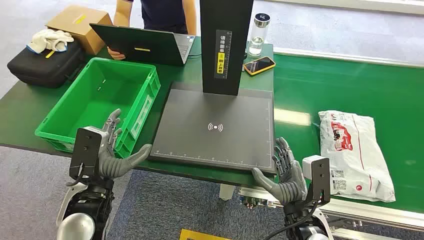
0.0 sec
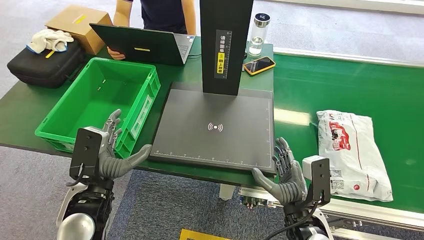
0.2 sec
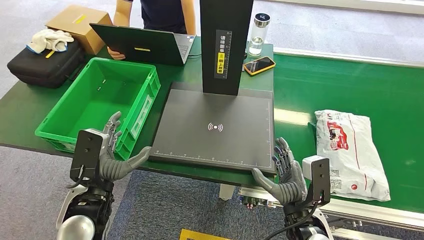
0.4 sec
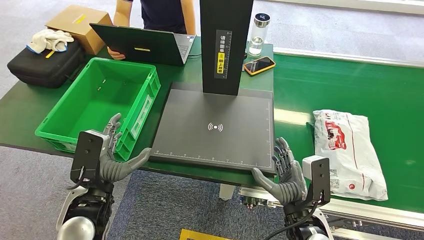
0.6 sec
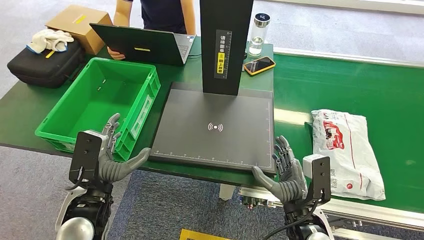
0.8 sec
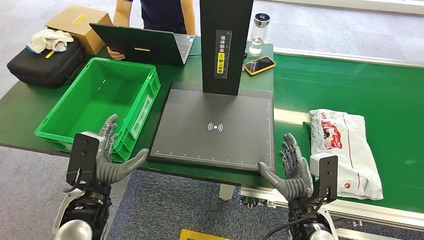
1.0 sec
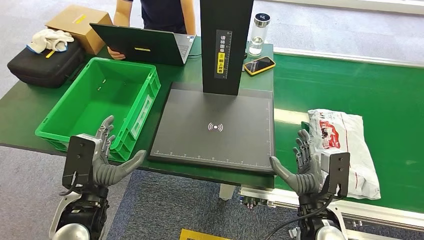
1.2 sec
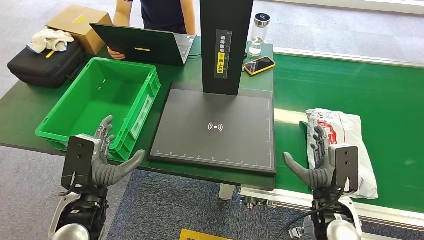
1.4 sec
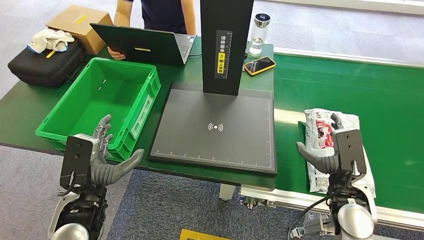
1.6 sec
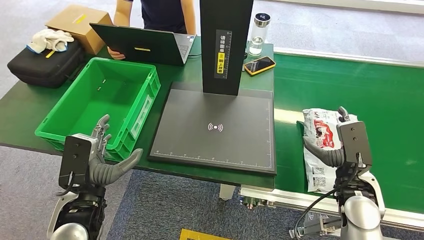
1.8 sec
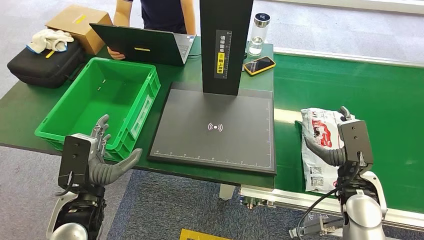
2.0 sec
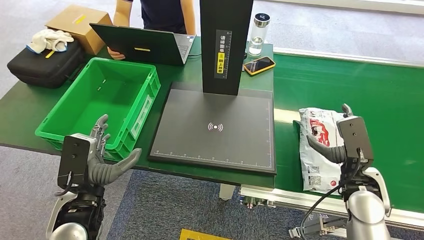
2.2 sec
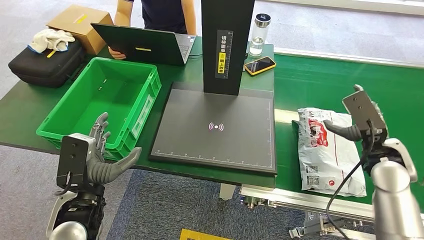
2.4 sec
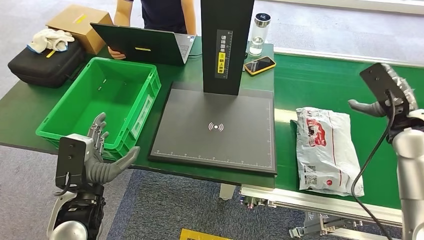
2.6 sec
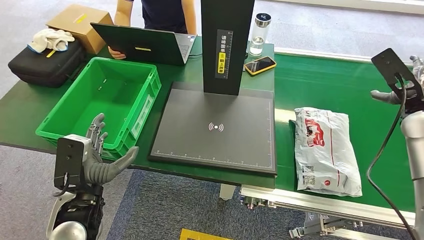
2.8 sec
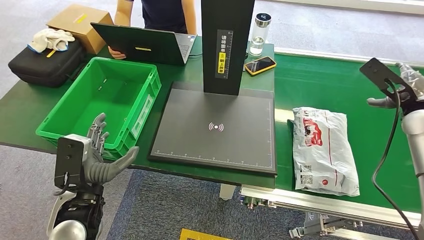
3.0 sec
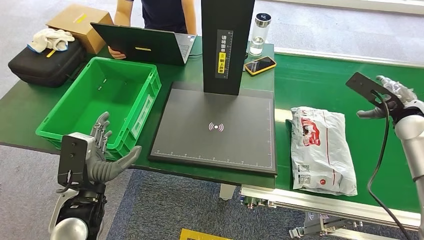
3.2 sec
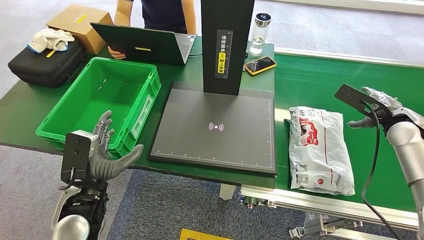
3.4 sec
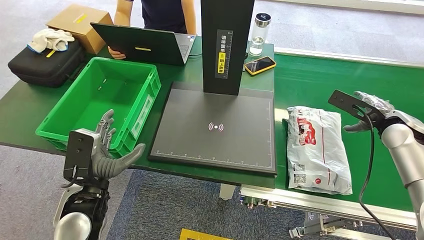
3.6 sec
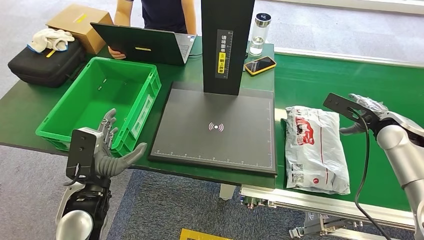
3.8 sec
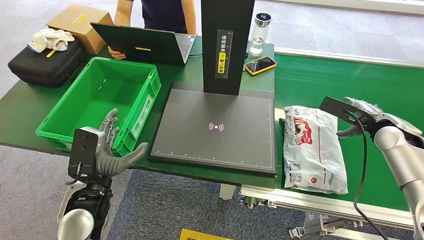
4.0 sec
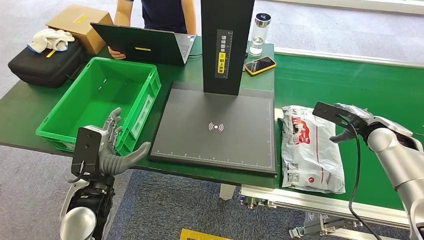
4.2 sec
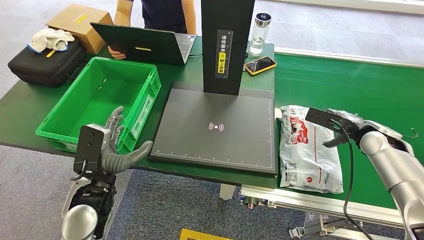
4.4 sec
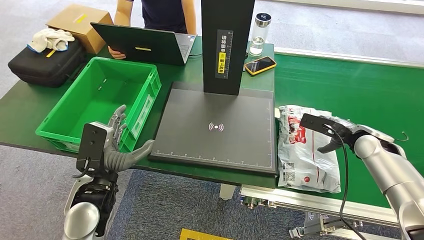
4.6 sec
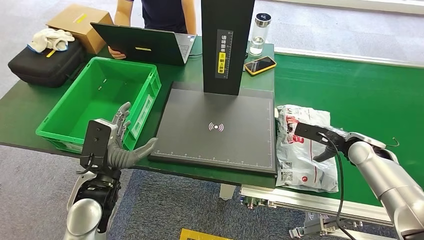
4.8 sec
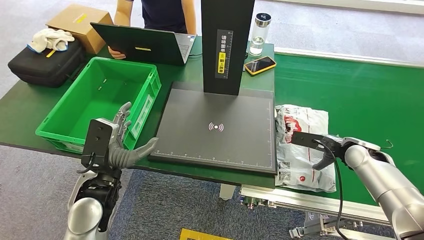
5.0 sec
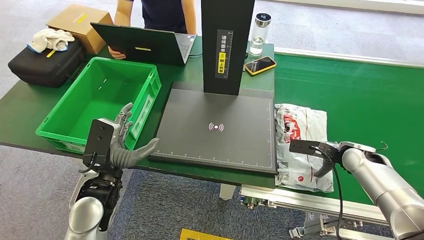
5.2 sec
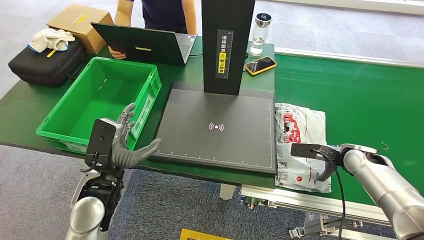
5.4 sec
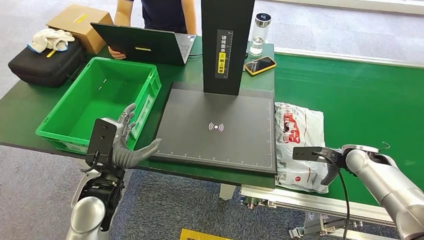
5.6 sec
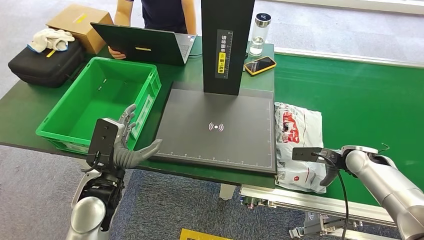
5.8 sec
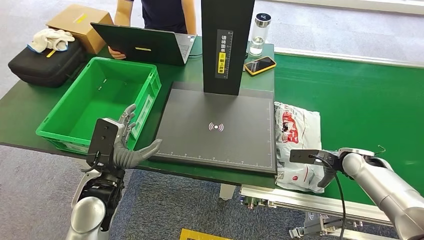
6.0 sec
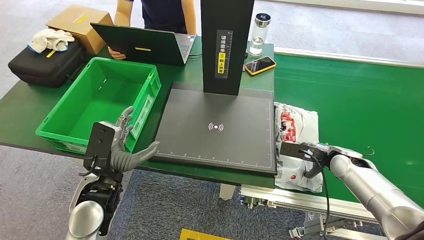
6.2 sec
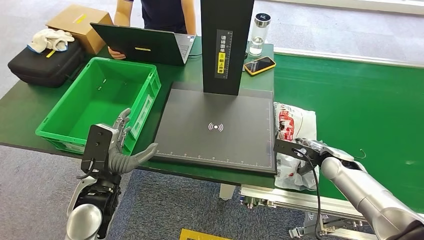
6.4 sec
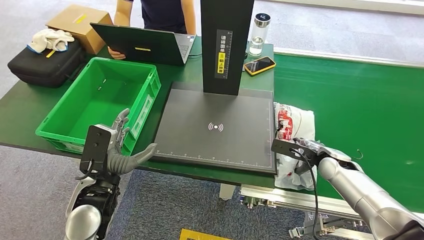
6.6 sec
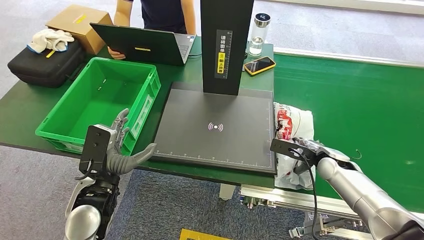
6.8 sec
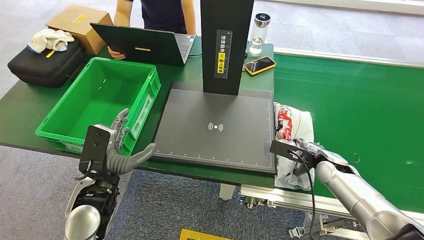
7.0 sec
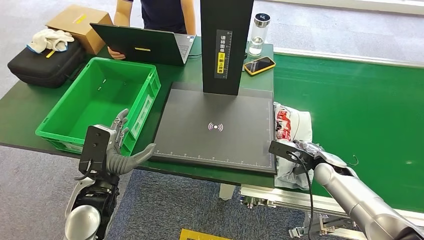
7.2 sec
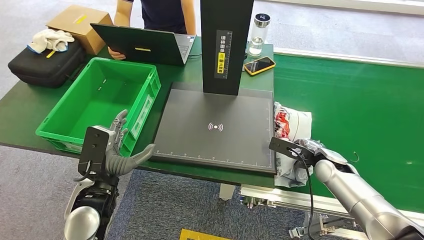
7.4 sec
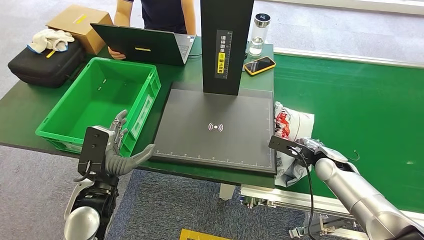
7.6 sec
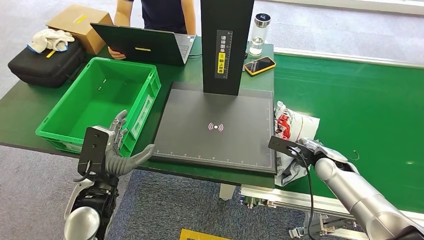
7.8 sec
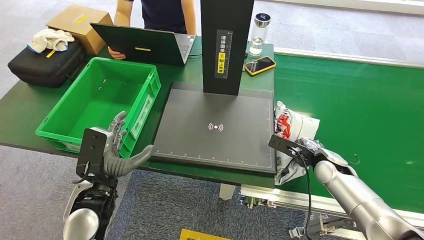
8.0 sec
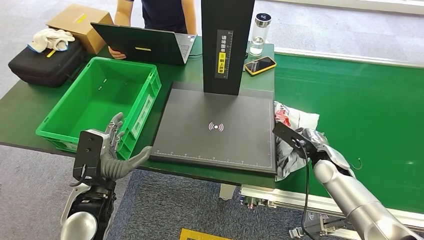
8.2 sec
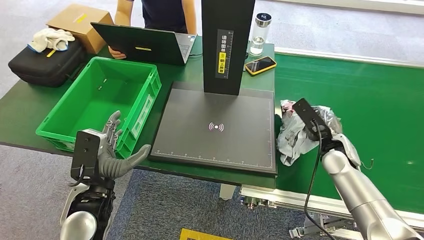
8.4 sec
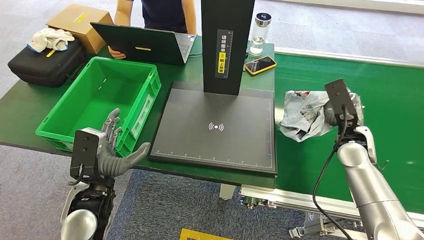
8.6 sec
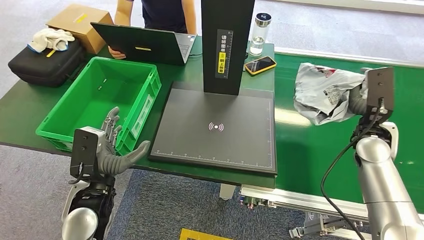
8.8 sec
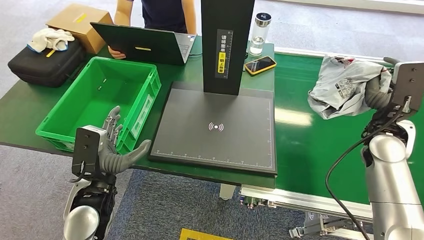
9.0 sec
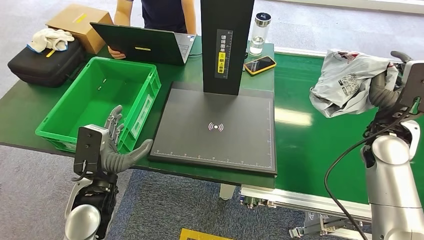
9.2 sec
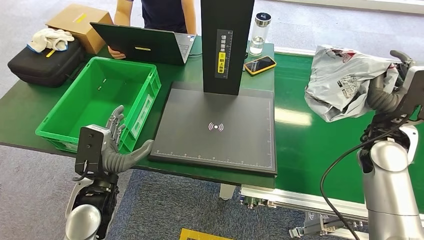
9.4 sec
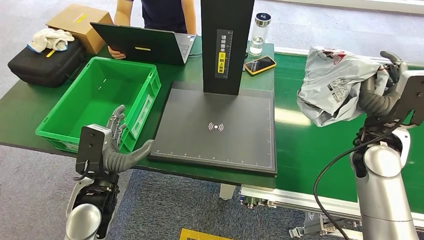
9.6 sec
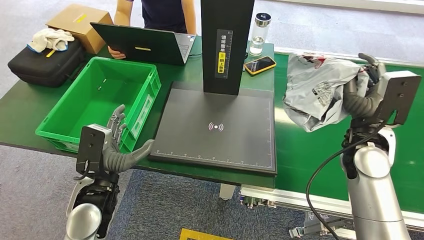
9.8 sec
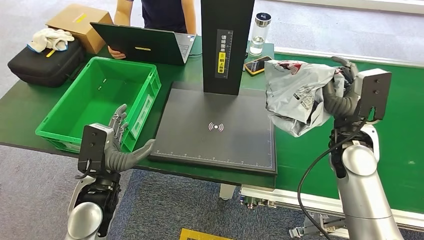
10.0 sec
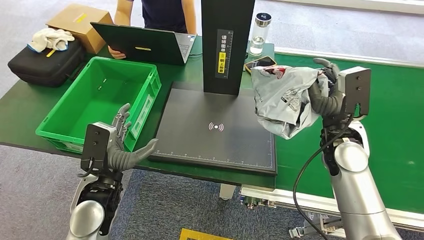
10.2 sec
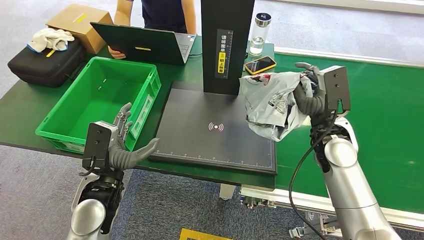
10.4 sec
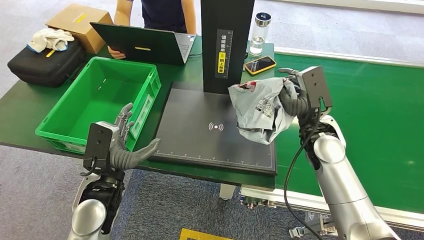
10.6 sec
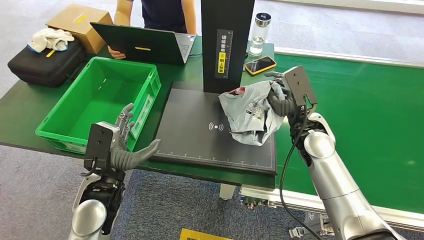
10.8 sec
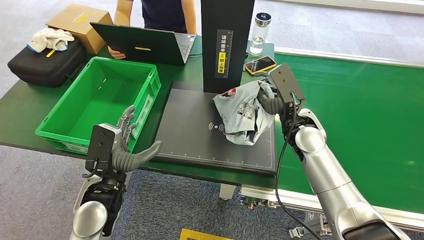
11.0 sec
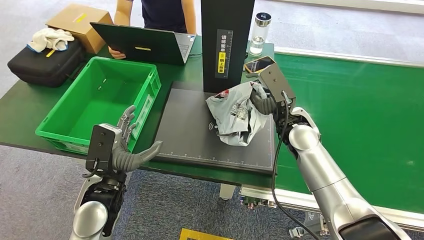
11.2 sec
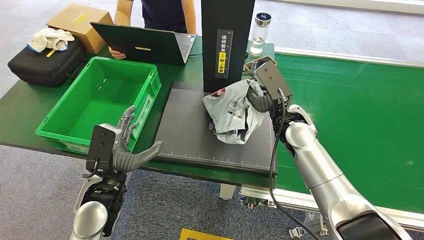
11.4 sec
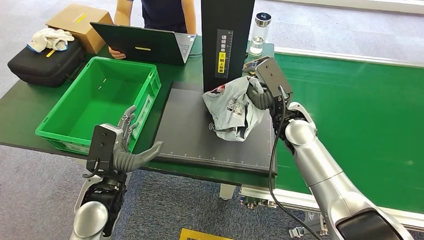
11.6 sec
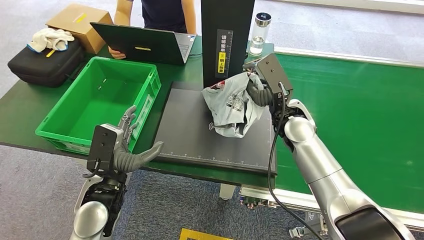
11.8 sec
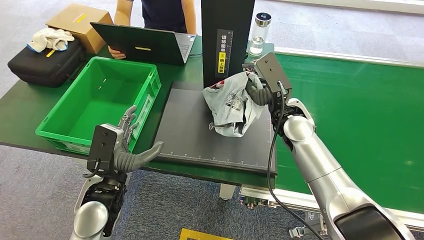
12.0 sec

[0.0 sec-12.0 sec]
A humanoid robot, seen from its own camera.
Step, 0.0 sec to 9.6 sec: Pick up the package from the conveyor belt.
1.6 sec to 3.0 sec: The right hand goes roughly 25 cm to the right, upward and forward.
3.0 sec to 4.4 sec: The right hand travels downward by some 5 cm.
4.4 sec to 6.0 sec: The right hand goes approximately 5 cm downward.
6.0 sec to 7.6 sec: The right hand heads to the left, covering approximately 5 cm.
7.6 sec to 9.0 sec: The right hand goes approximately 10 cm upward.
10.4 sec to 12.0 sec: The right hand shifts about 10 cm to the left.

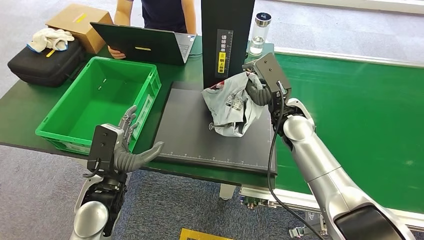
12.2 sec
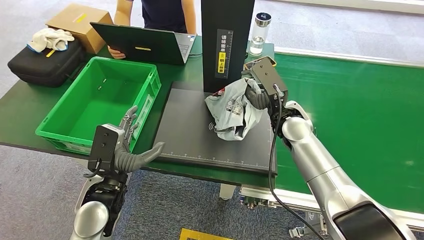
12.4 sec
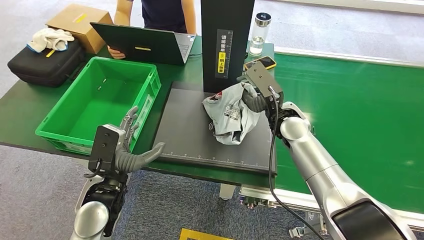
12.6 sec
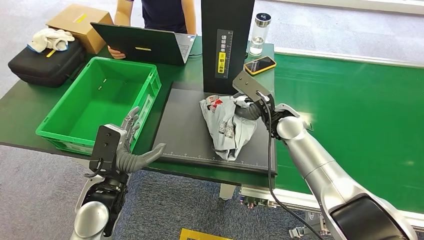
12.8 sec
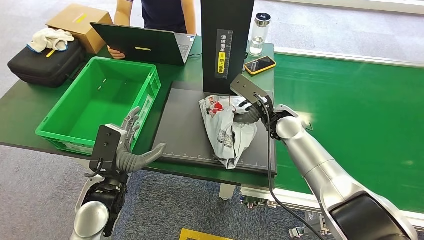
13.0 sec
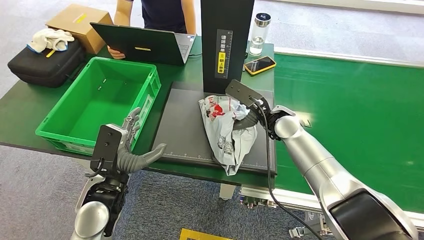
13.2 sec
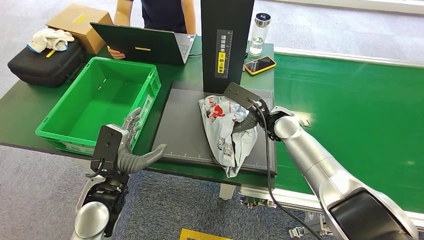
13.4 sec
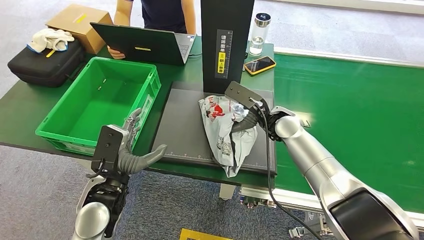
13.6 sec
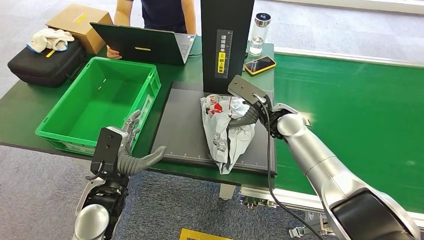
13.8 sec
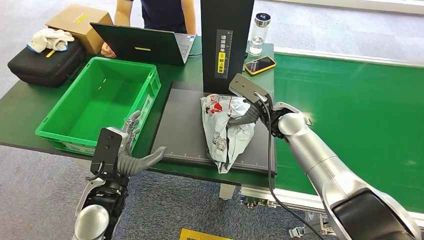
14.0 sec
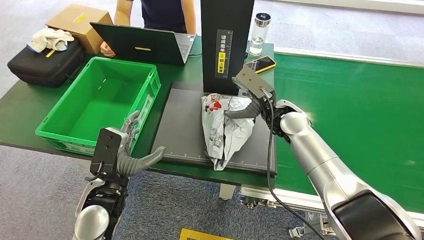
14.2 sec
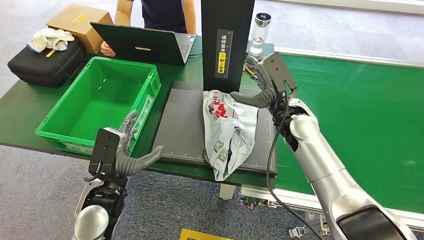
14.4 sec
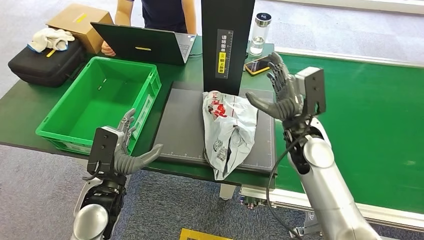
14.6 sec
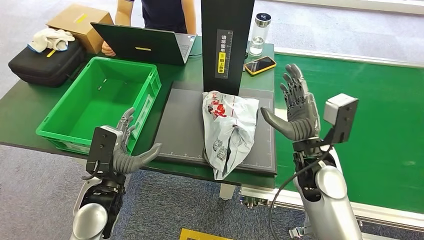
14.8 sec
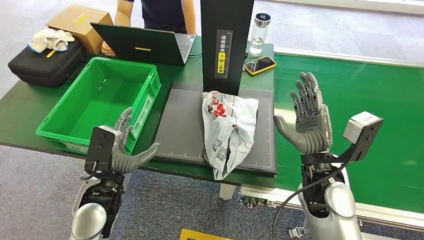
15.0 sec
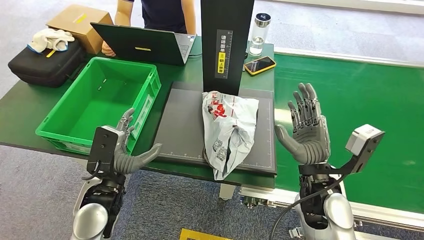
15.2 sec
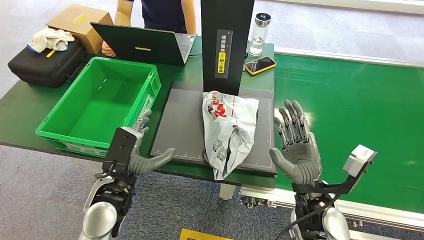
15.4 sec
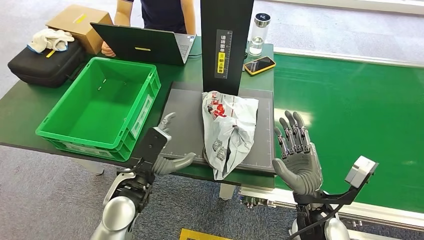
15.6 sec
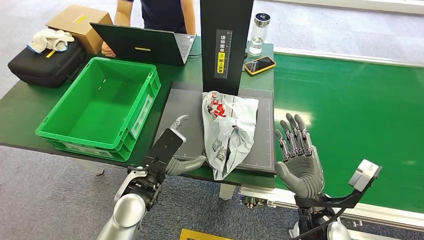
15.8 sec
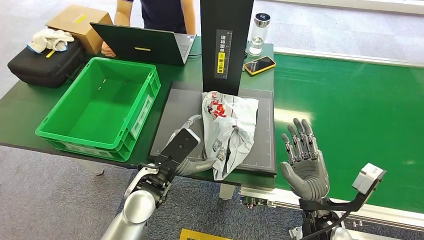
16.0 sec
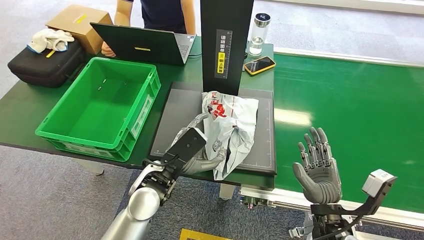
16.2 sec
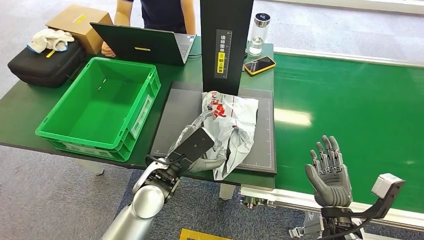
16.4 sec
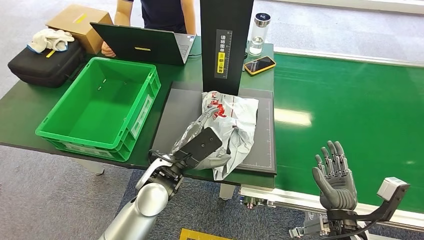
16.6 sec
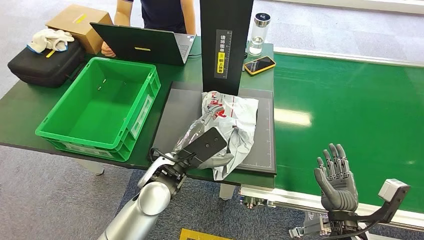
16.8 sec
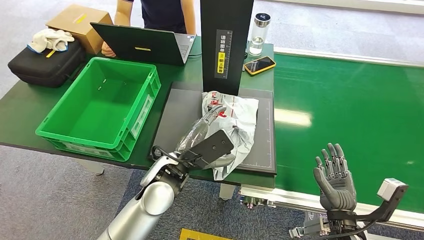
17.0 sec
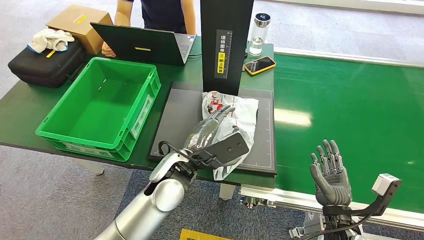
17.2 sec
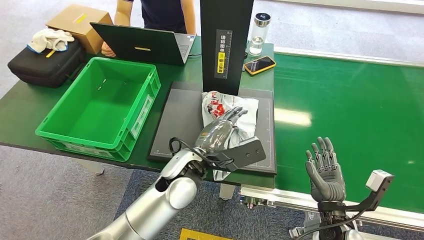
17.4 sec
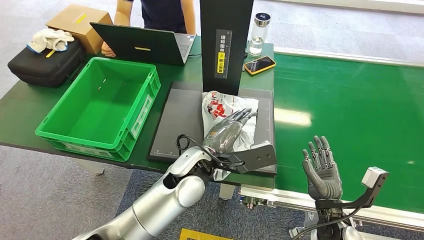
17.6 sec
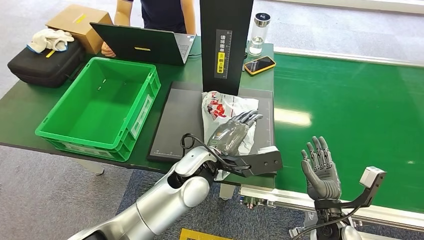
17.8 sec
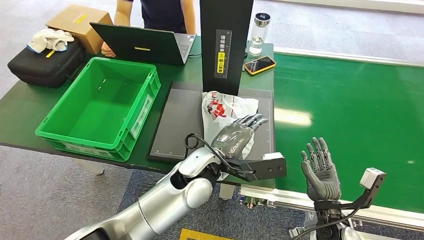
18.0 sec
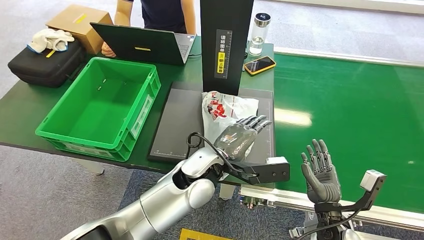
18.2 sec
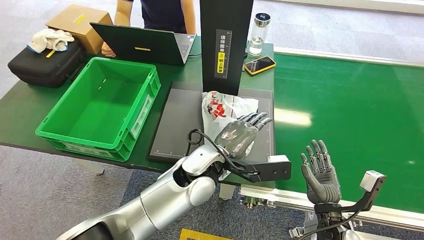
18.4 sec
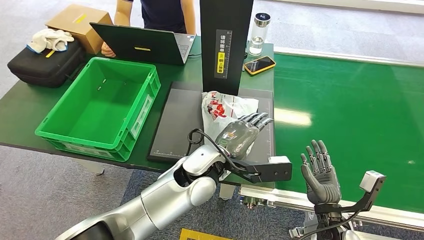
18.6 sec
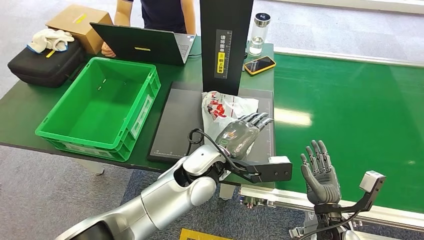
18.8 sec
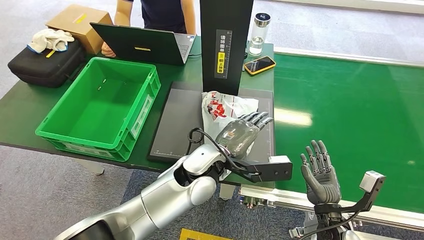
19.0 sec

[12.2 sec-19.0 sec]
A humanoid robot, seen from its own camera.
Step, 12.2 sec to 16.0 sec: Place the package onto the inbound machine.
13.6 sec to 15.0 sec: The right hand travels backward by about 15 cm.
15.0 sec to 16.2 sec: The left hand is displaced to the right by approximately 10 cm, while the right hand moves backward and downward, approximately 15 cm.
16.2 sec to 17.6 sec: The right hand travels downward by approximately 5 cm. The left hand moves to the right, about 5 cm.
17.6 sec to 19.0 sec: The hands make only small movements.
